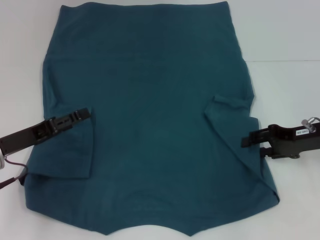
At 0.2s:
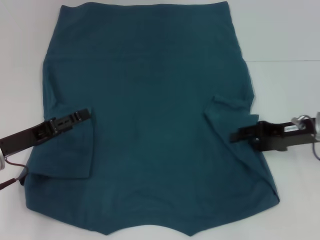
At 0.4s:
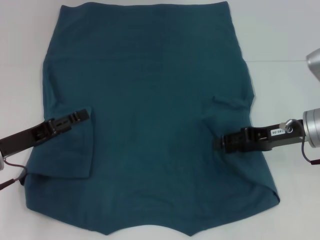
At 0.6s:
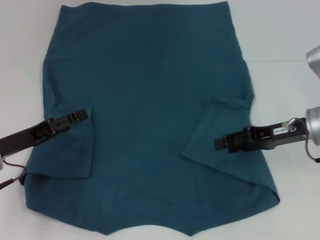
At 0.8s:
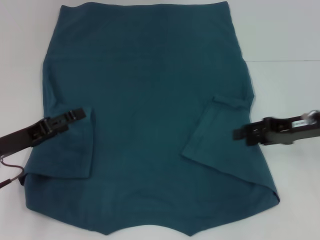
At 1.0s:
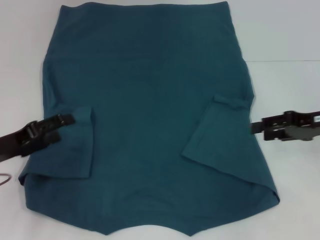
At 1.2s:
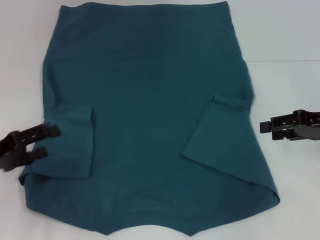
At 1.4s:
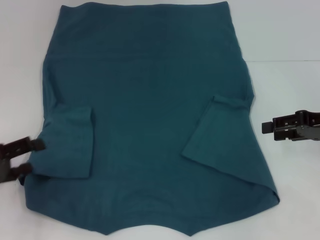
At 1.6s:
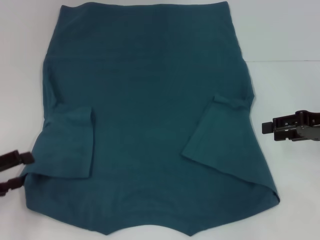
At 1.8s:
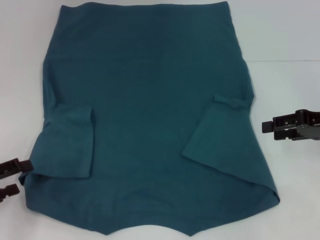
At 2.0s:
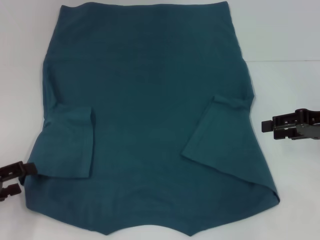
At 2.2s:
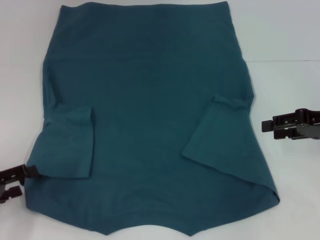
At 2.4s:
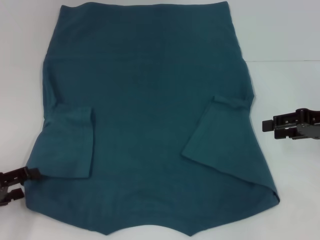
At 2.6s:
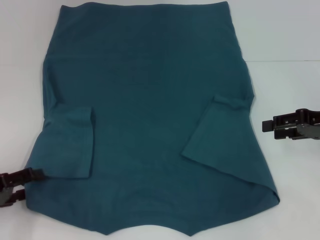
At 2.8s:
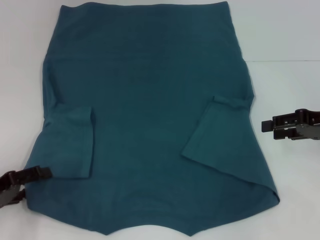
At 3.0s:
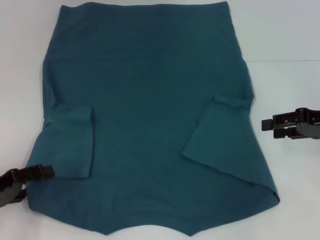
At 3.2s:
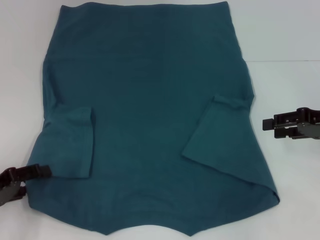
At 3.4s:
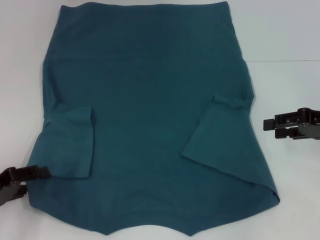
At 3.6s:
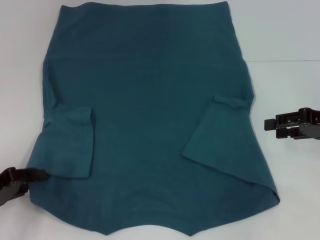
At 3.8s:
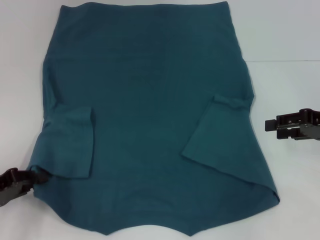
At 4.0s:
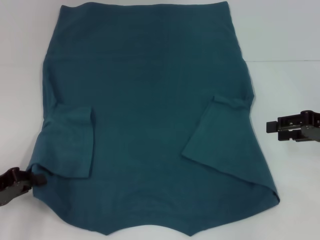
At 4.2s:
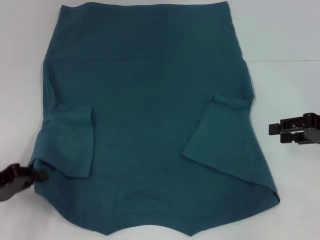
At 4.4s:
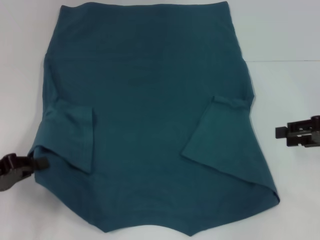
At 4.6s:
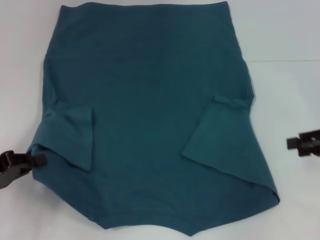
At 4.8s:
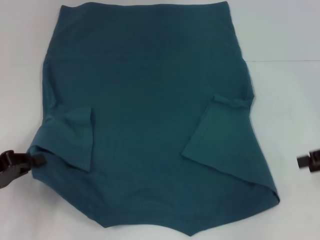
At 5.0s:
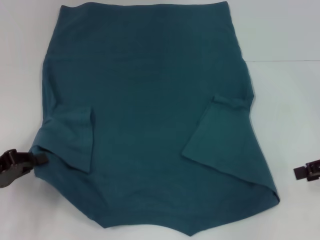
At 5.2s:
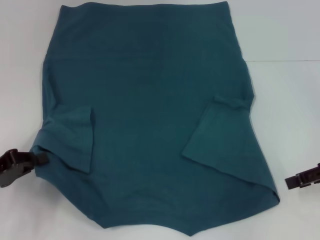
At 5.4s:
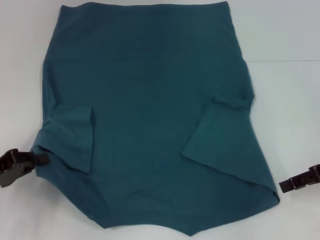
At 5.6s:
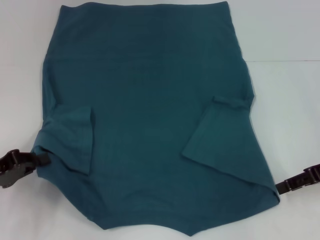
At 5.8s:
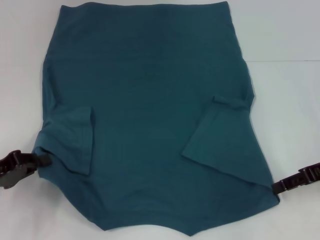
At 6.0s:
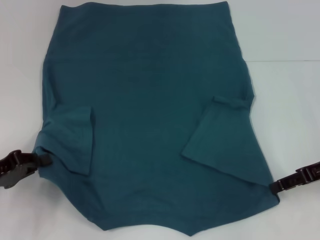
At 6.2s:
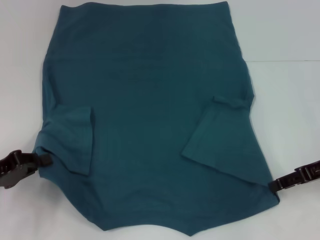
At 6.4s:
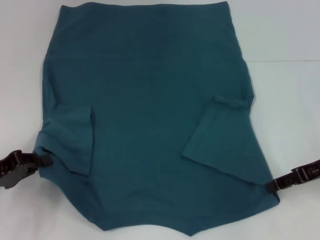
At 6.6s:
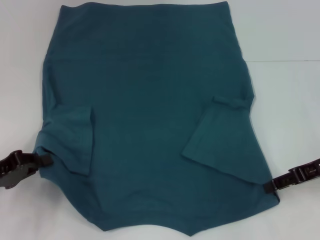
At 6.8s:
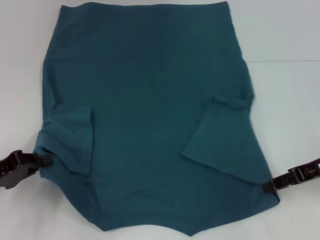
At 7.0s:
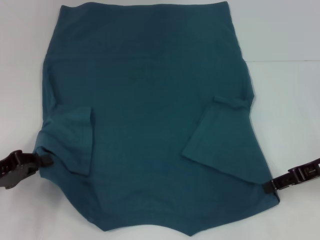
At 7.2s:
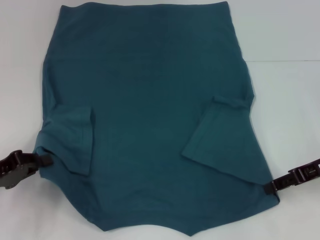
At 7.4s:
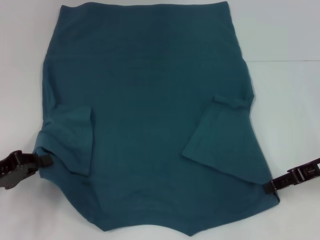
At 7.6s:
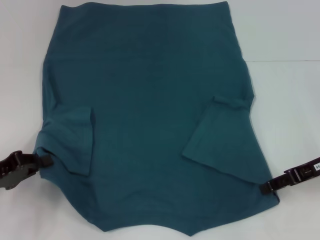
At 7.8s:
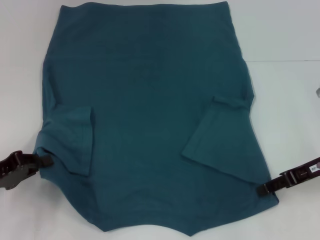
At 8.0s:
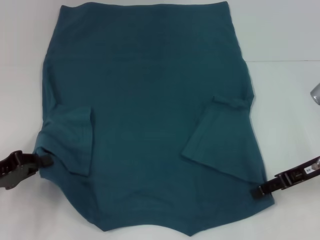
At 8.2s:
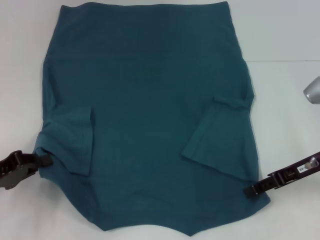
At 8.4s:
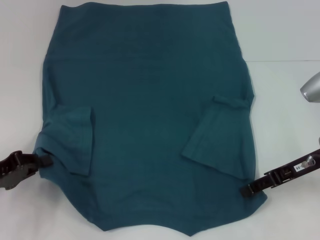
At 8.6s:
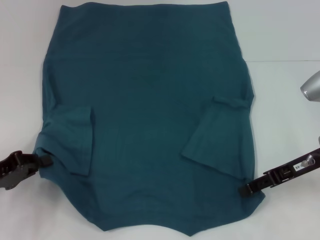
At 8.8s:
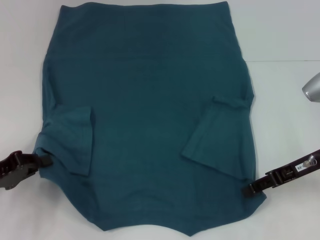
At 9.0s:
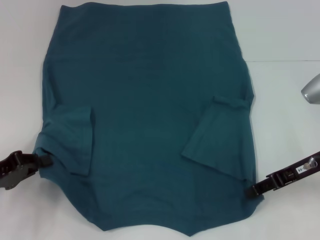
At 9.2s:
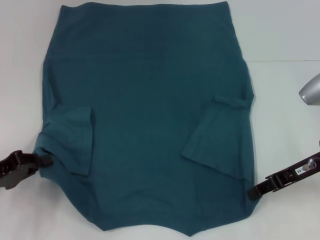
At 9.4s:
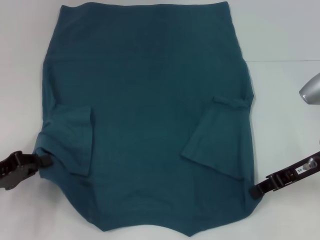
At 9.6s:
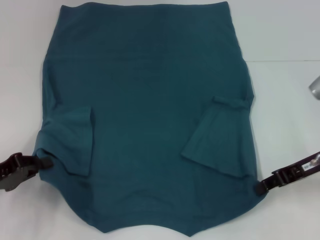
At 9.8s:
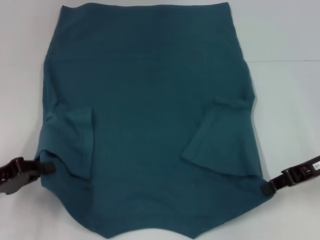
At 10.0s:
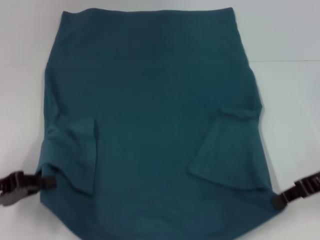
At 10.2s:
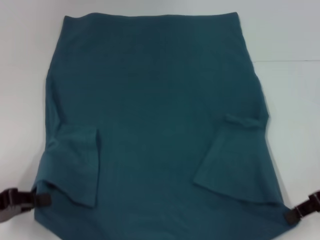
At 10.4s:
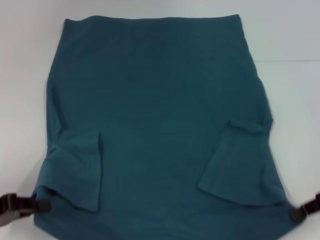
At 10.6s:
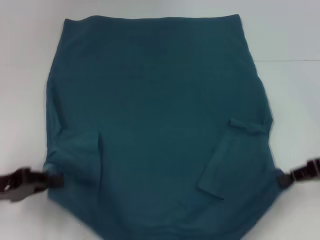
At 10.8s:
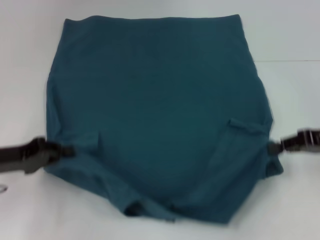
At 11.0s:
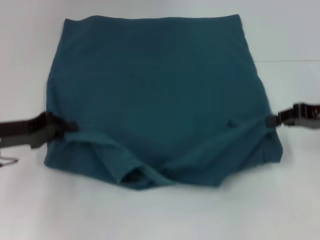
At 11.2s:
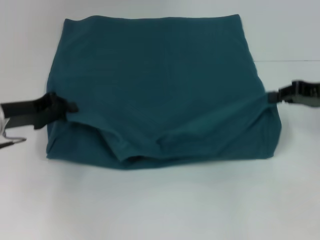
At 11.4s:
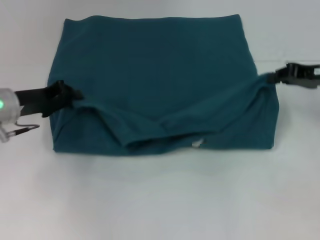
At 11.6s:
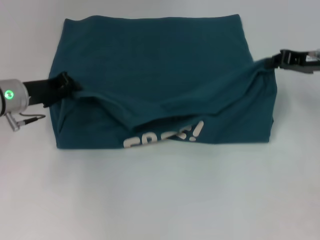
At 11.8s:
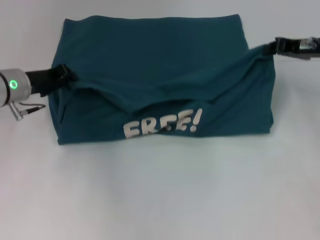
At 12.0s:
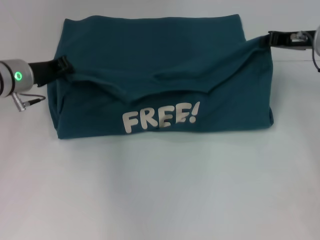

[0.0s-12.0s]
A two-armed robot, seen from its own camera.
Step, 0.6s to 4.0s: Grab the bottom left corner with your left hand.
Step, 4.2s to 9.4s: Grab the bottom right corner with your right hand.
0.0s to 1.6s: The left gripper moves to the left and backward, roughly 10 cm. Meanwhile the right gripper shifts by about 5 cm.
1.6s to 3.0s: The grippers make only small movements.
3.0s to 4.4s: The left gripper closes.
6.0s to 9.0s: The grippers stay close to where they were, moving slightly.
9.0s to 10.4s: The right gripper moves to the right, about 5 cm, and closes its fingers.
10.4s to 12.0s: The left gripper goes some 25 cm forward and to the right. The right gripper goes about 15 cm forward.

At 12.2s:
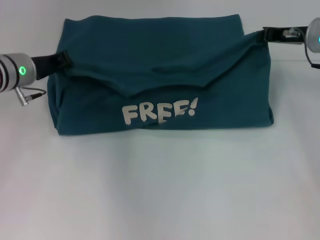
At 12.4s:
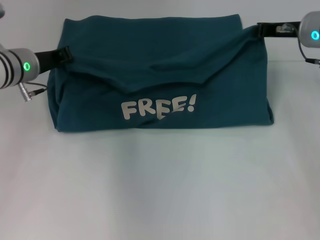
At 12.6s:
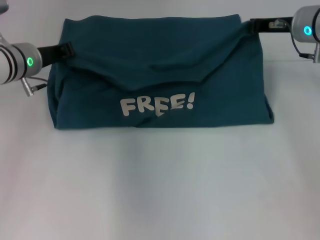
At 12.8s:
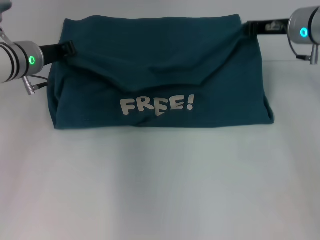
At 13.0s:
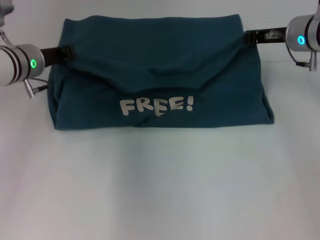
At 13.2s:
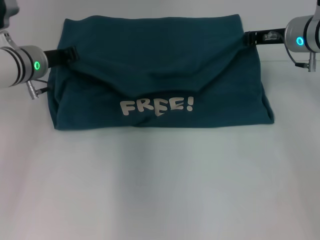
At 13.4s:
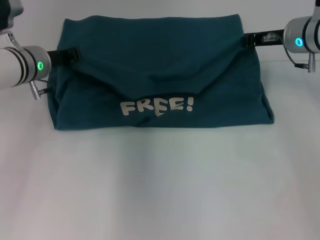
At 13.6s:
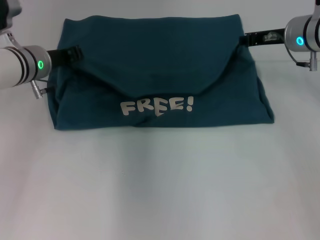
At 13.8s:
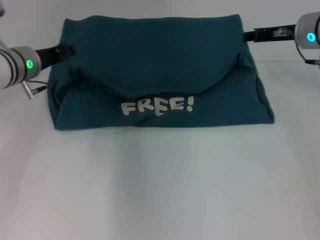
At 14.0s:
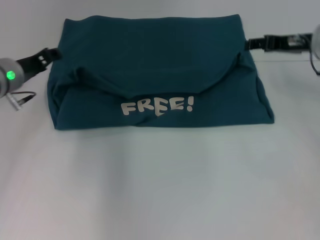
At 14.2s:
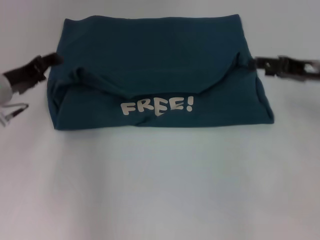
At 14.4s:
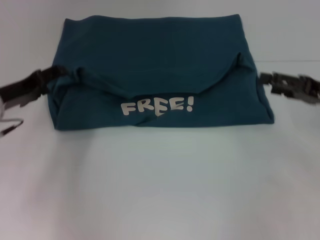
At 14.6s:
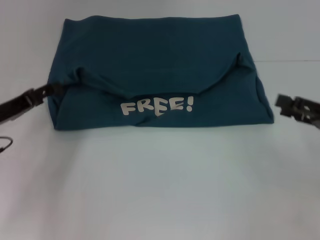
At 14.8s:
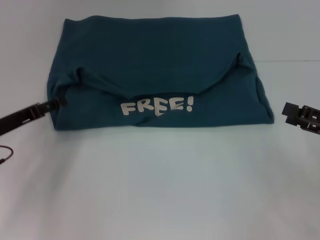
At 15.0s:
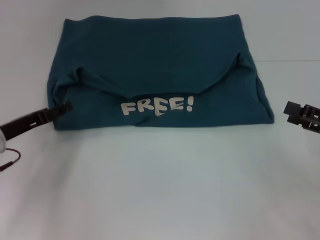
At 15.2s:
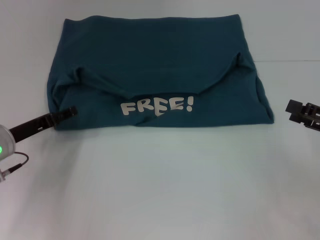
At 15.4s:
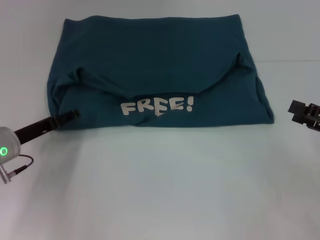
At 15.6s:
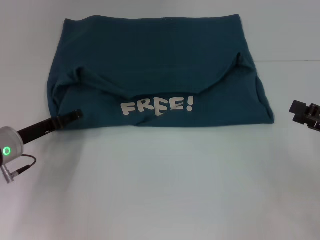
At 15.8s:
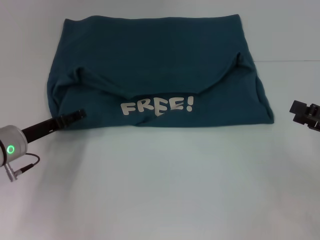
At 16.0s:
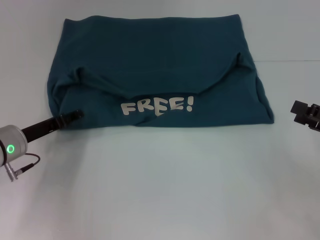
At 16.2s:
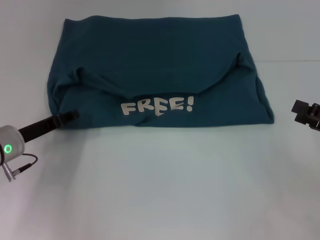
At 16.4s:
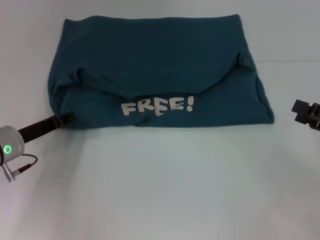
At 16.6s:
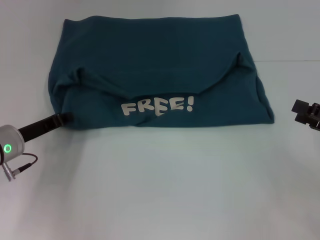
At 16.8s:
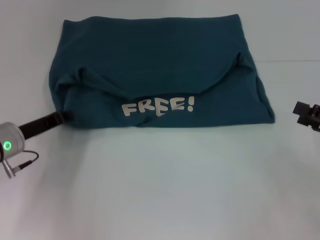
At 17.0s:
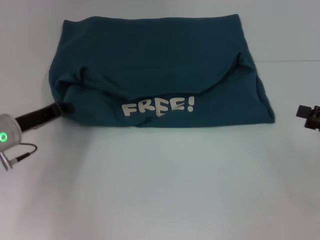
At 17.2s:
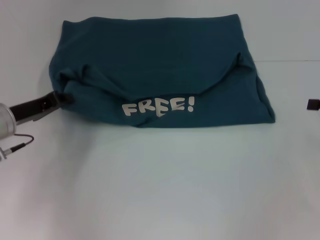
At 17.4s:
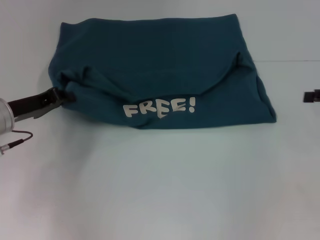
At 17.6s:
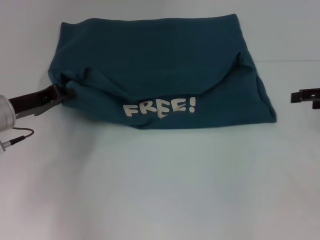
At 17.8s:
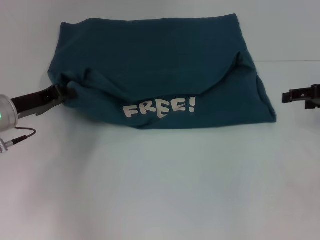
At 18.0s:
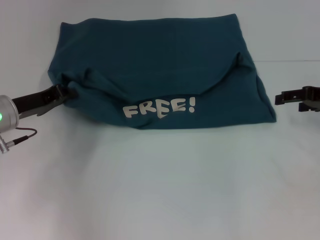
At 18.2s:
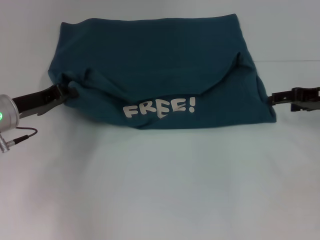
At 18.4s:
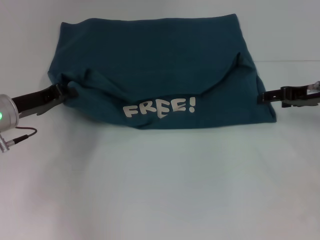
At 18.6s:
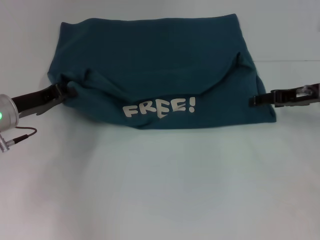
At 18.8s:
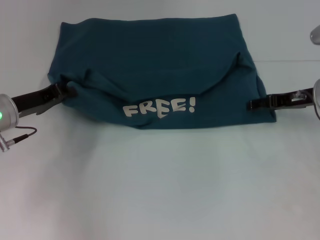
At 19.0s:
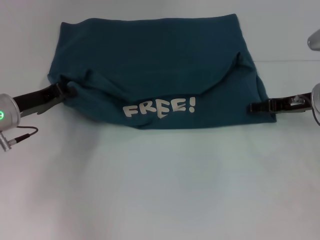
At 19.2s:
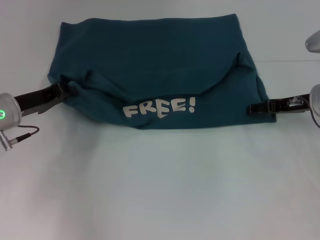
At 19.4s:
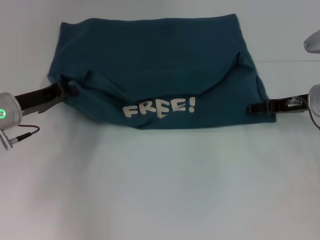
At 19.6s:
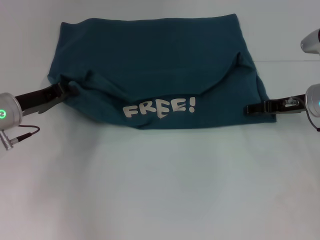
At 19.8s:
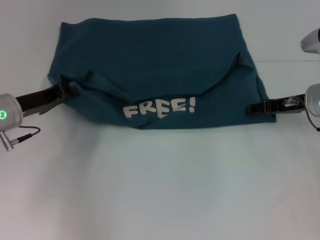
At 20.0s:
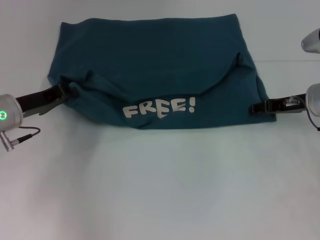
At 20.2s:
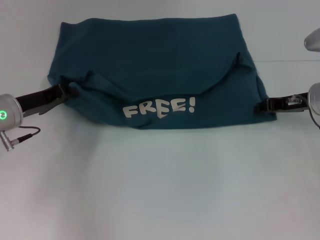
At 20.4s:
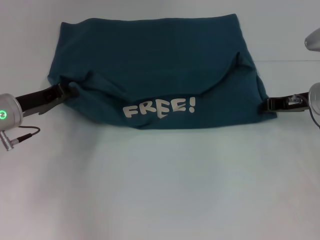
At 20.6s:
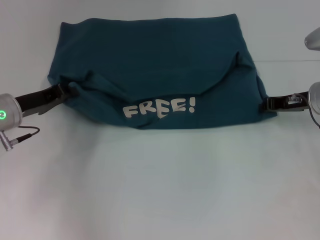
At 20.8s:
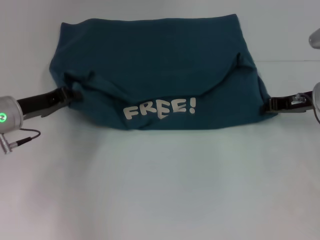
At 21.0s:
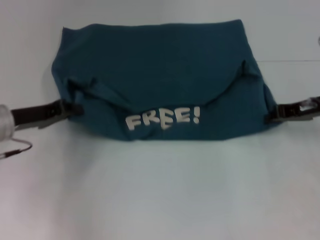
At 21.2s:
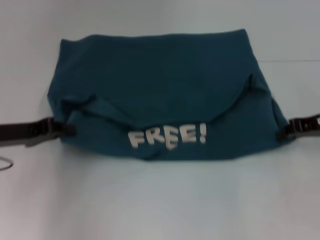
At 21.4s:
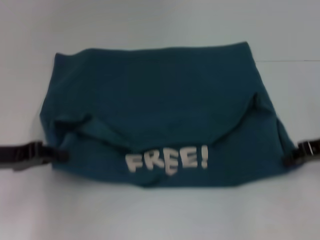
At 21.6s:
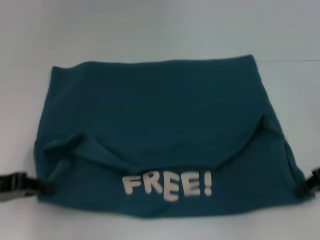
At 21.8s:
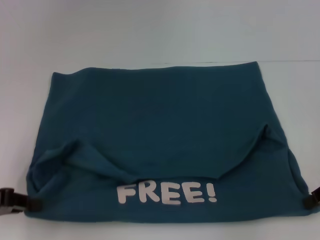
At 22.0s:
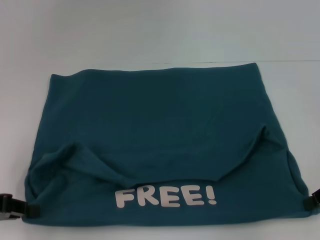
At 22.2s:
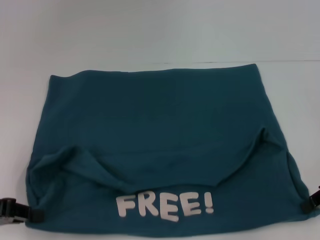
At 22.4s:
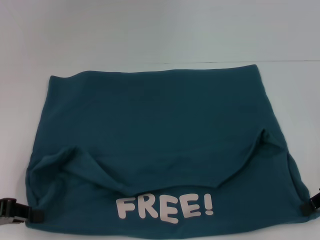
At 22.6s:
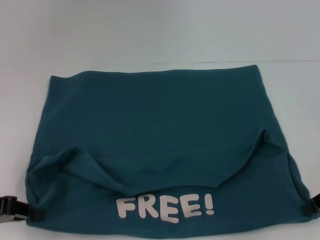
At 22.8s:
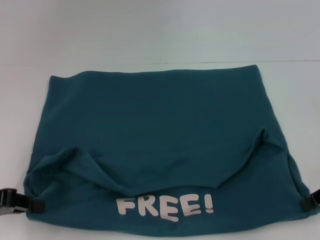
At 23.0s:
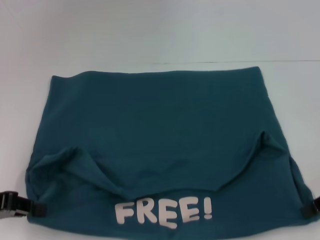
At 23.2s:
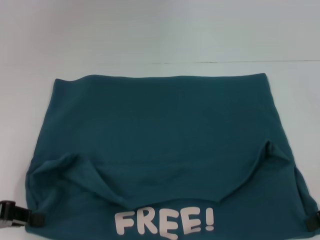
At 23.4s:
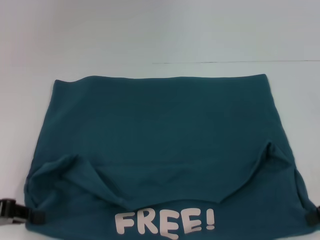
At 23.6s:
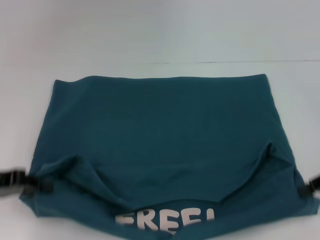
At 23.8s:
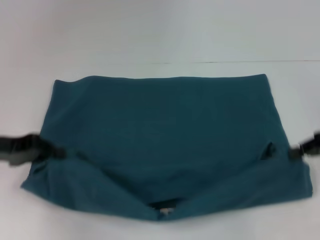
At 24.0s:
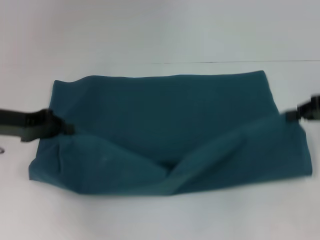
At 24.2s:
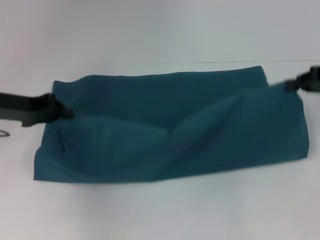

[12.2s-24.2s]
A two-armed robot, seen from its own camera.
Step, 14.0s to 23.2s: Pull the clothes with your left hand.
Step, 14.0s to 23.2s: Pull the clothes with your right hand.
12.2s to 13.8s: The grippers move only a little.
13.8s to 15.2s: The left gripper travels backward and downward by some 15 cm, and opens its fingers. Meanwhile the right gripper goes roughly 20 cm backward and to the right, and opens its fingers.
15.2s to 16.6s: The left gripper closes its fingers.
16.6s to 18.2s: The left gripper shifts by some 5 cm. The right gripper shifts approximately 15 cm forward.
18.2s to 19.8s: The right gripper heads to the left, covering about 5 cm.
19.8s to 21.2s: The left gripper ends up about 5 cm from where it was, while the right gripper moves some 5 cm, and closes its fingers.
21.2s to 22.6s: The grippers both shift backward by roughly 5 cm.
22.6s to 24.2s: The left gripper moves forward, approximately 15 cm; the right gripper travels forward and upward by approximately 10 cm.
